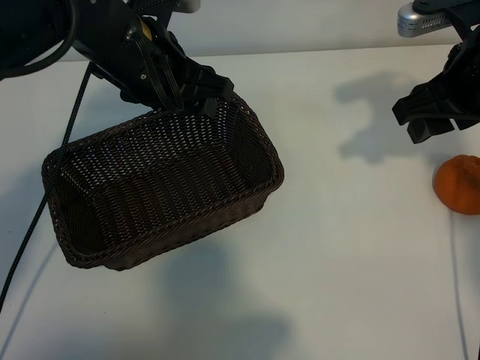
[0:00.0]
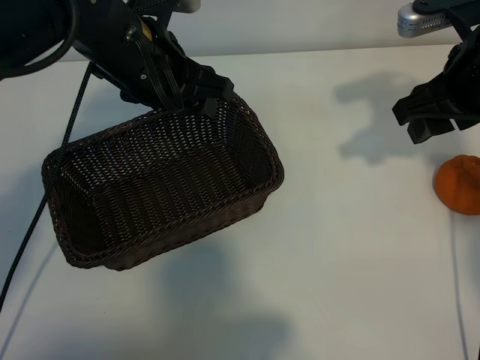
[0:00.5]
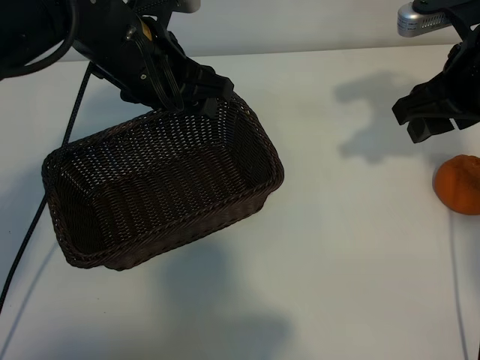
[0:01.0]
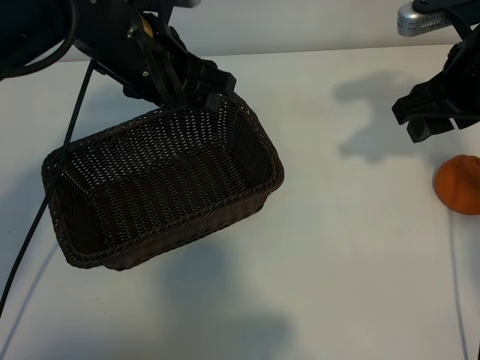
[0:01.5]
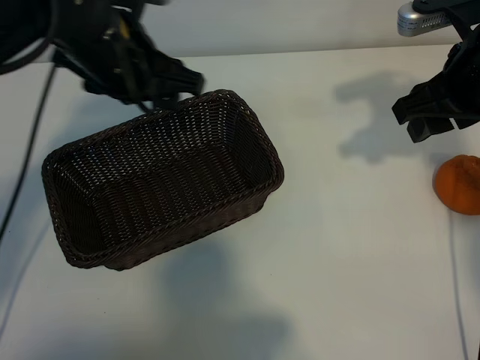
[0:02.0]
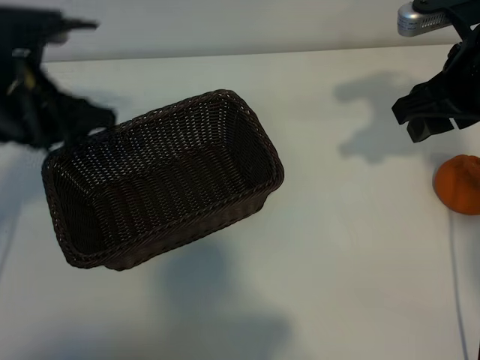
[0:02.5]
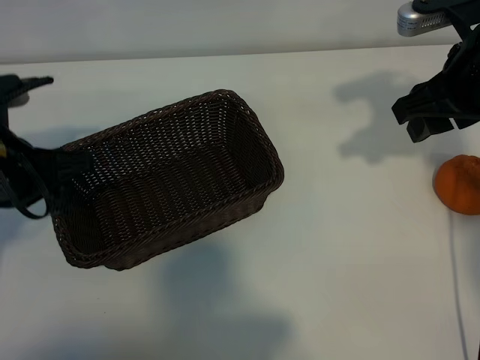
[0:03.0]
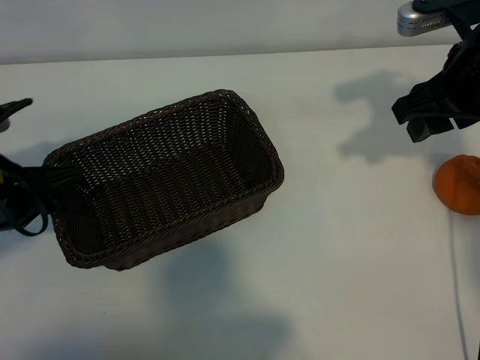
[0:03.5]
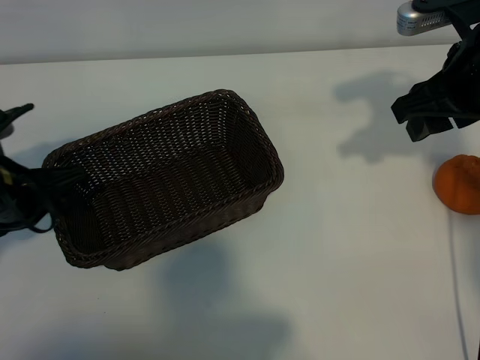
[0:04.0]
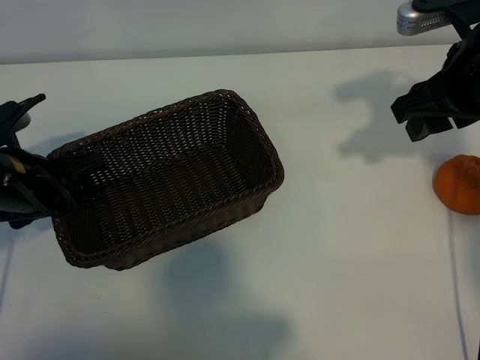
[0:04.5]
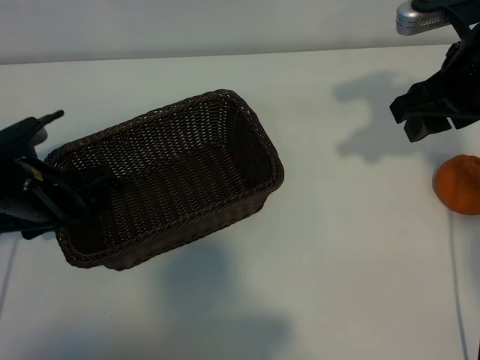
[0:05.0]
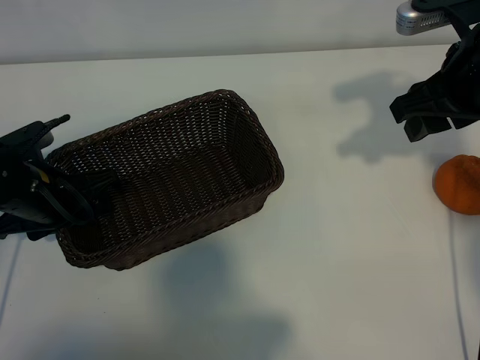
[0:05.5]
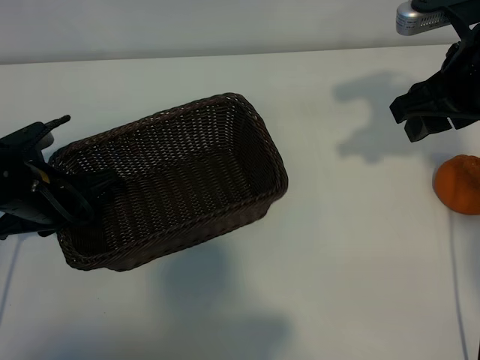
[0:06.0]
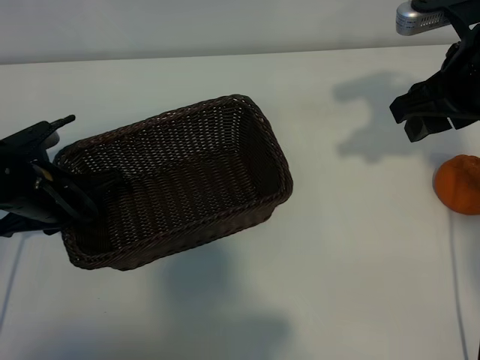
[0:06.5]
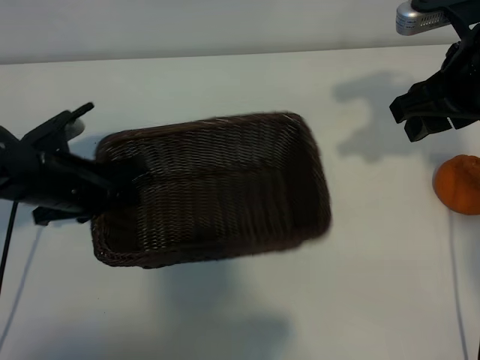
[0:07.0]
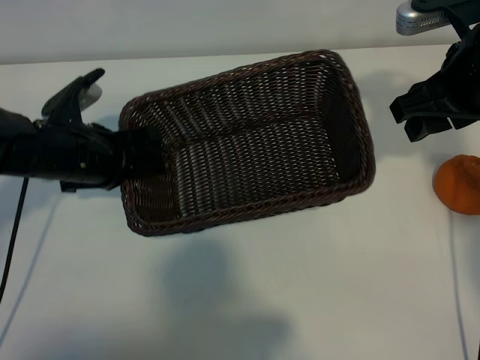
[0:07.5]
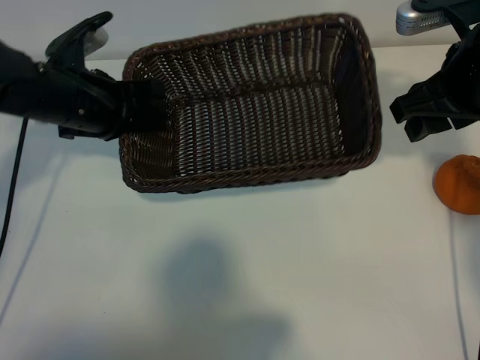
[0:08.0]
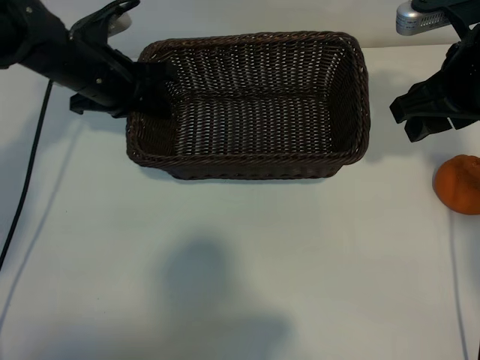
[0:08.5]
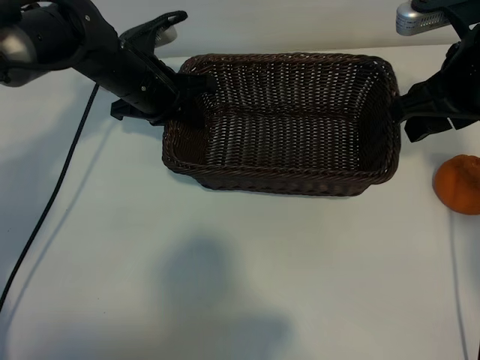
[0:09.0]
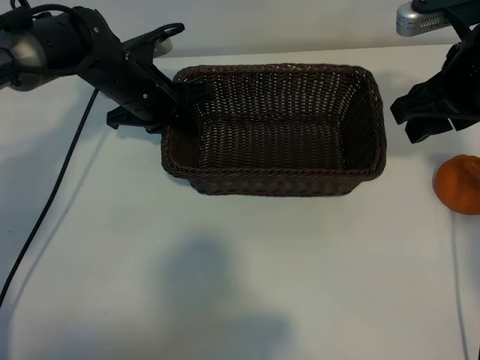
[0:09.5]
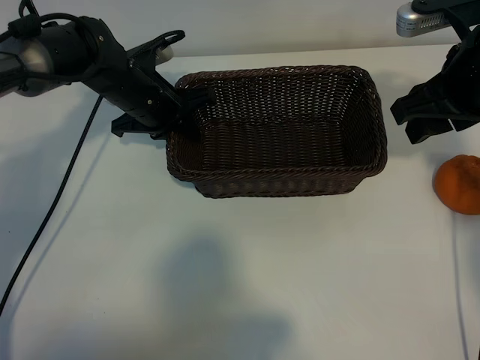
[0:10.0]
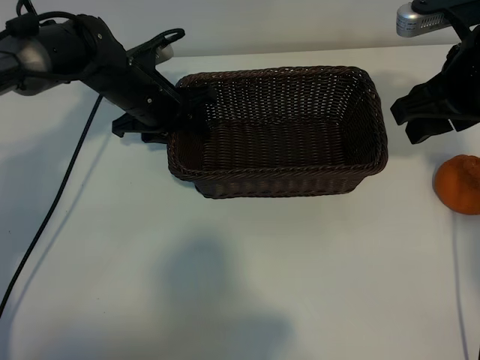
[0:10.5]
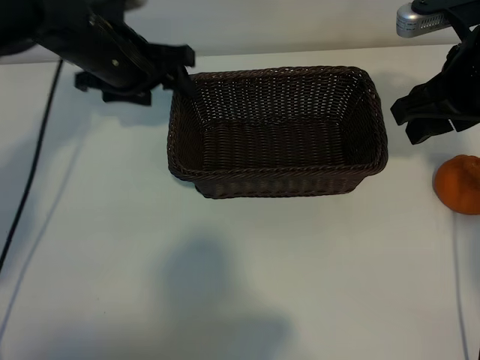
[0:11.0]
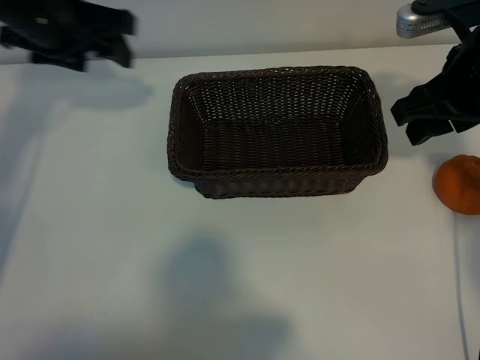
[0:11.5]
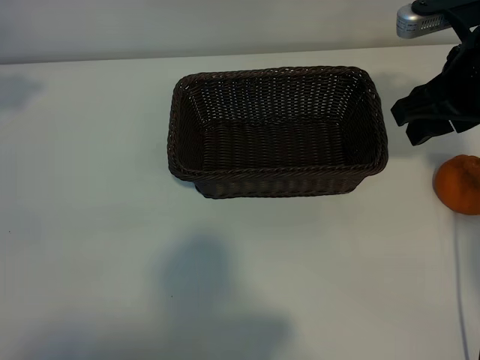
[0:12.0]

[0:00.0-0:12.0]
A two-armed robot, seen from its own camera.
Task of the whole recording: pick up the orange and put it into the basket.
Step, 0:01.0 to 0:05.5: Grasp the basket with left gripper.
Step, 0:06.5 to 0:09.5: Place the basket in the center of view with left gripper.

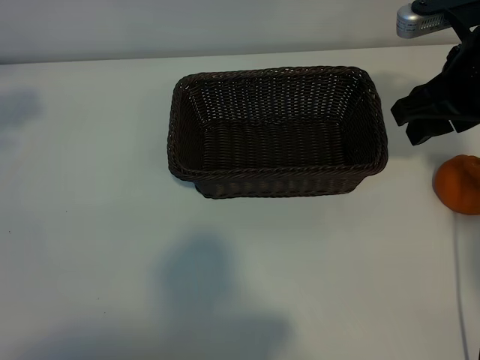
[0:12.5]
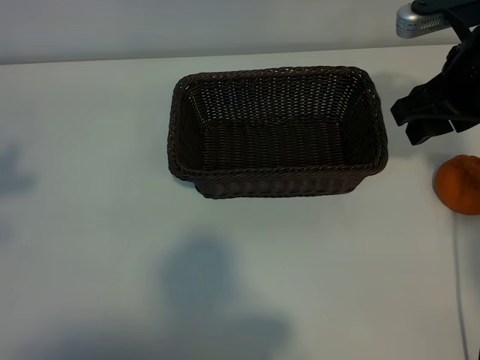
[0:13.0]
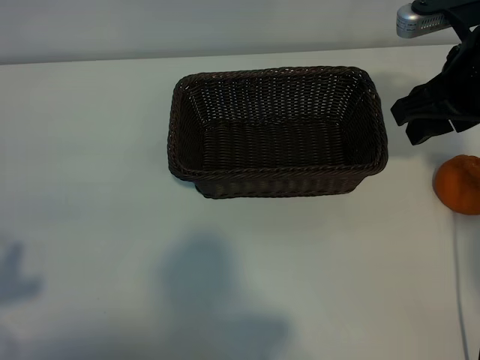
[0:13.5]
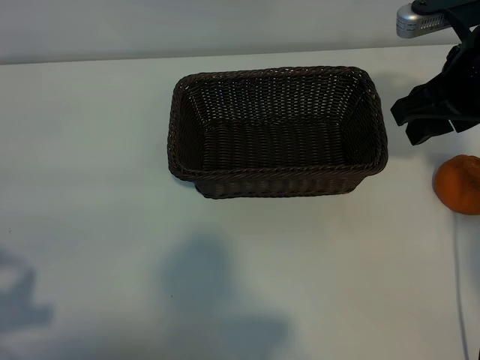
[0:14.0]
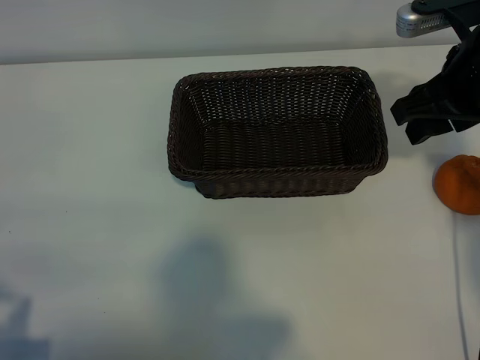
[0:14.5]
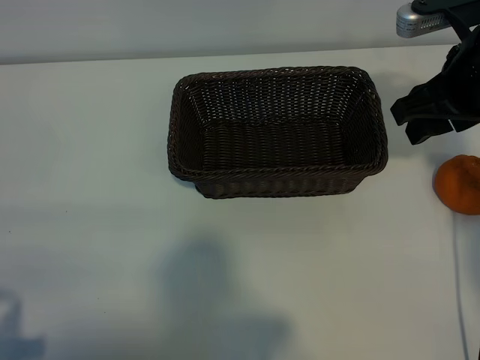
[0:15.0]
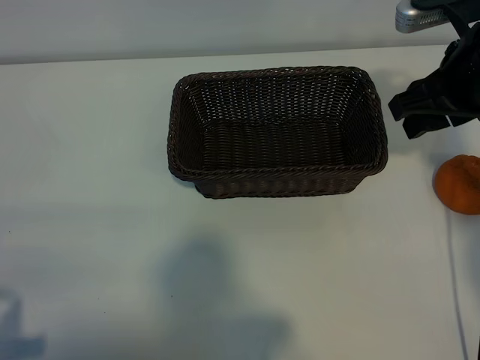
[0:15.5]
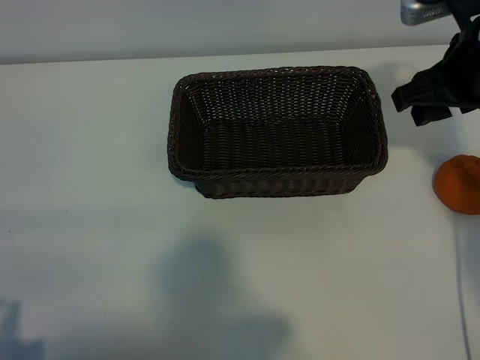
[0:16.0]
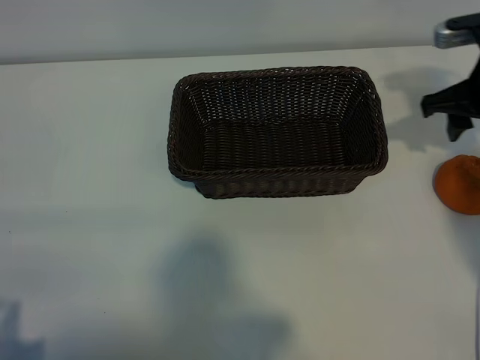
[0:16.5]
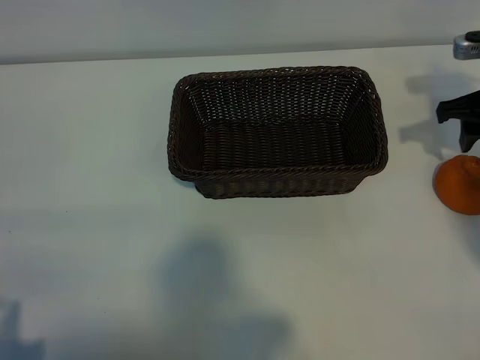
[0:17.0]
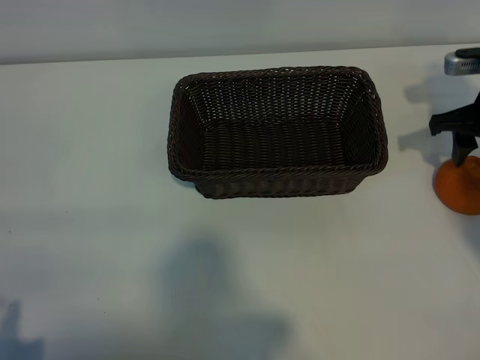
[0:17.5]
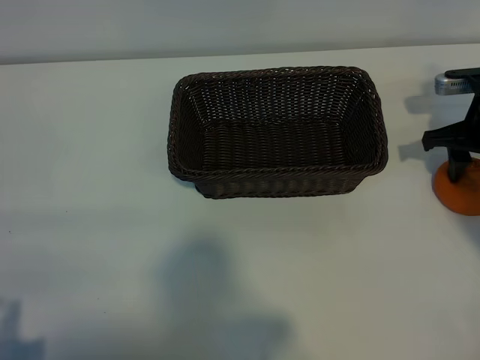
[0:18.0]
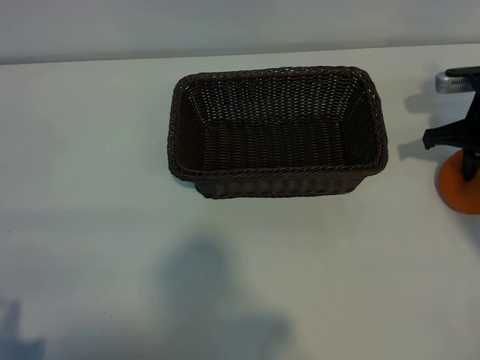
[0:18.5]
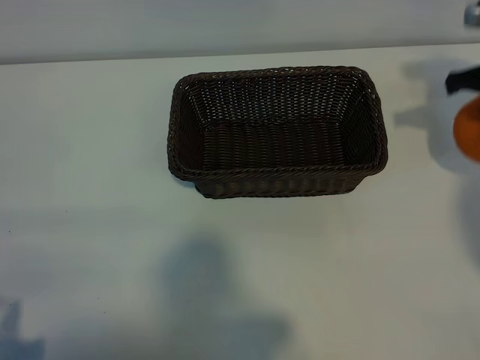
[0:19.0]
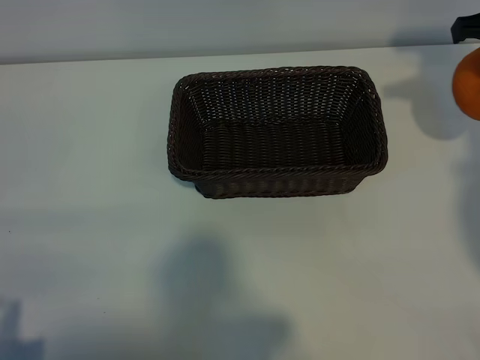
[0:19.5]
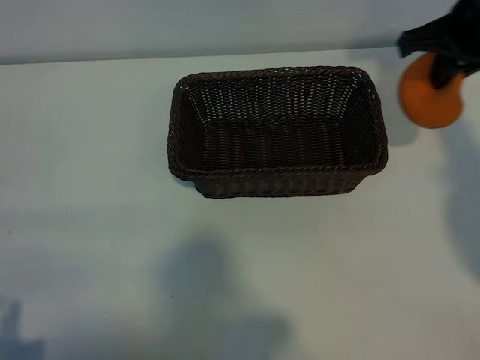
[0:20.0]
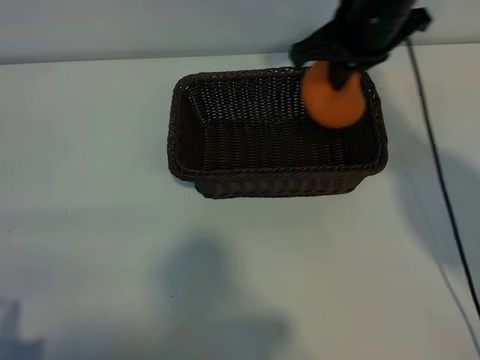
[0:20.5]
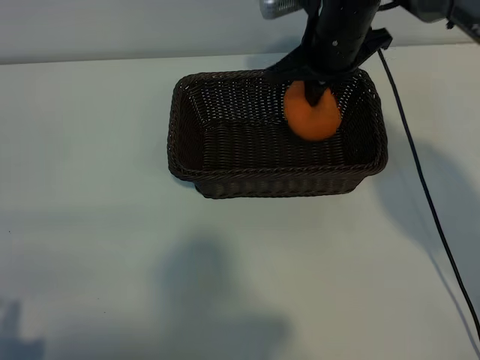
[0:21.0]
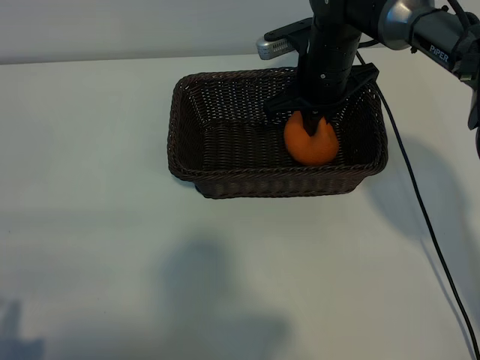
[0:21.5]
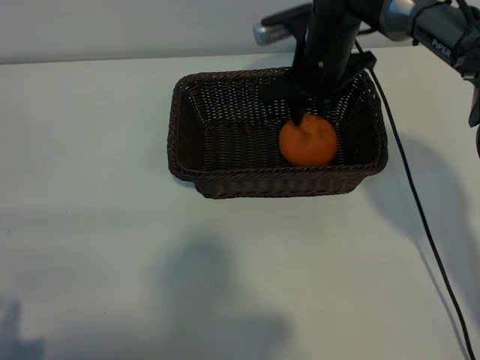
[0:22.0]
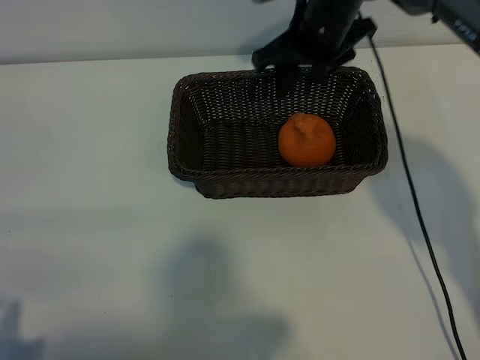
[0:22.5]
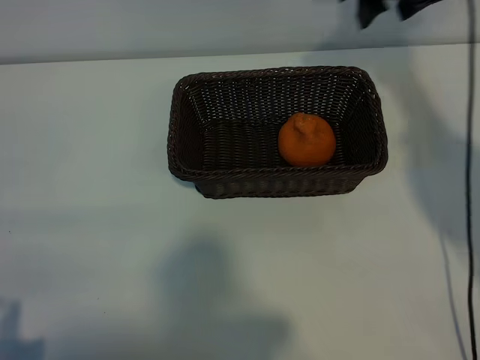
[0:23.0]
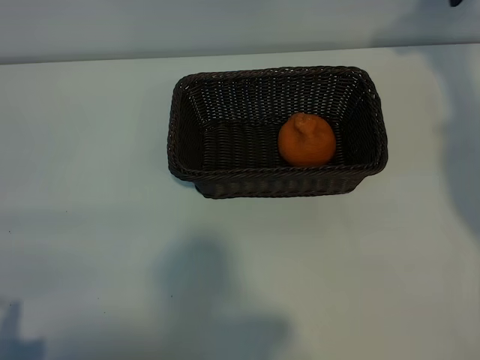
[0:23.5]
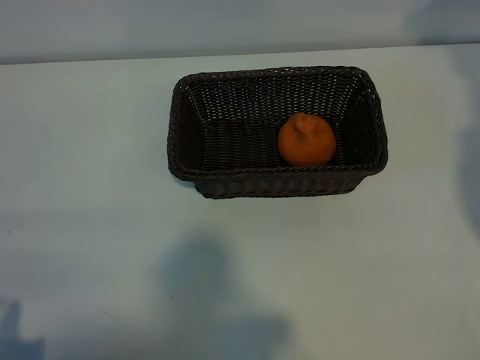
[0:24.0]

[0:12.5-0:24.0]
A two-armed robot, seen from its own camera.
Task of the whole recording: pick up the orange and put it into the basket.
Step, 0:12.5 to 0:18.0: Grasp the orange with right gripper.
Step, 0:18.5 to 0:22.0: Place the orange in the basket with right gripper.
